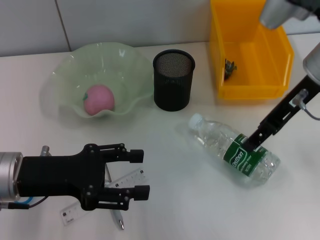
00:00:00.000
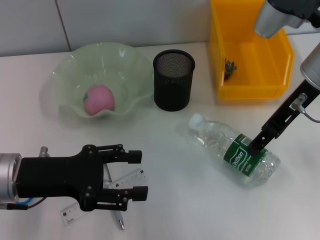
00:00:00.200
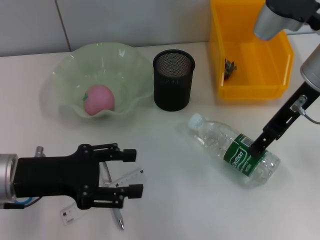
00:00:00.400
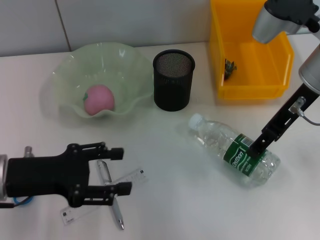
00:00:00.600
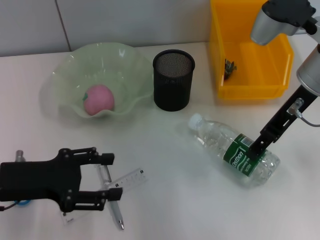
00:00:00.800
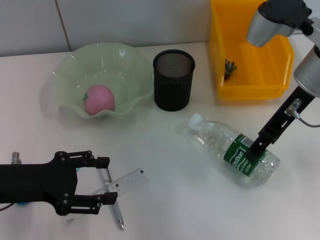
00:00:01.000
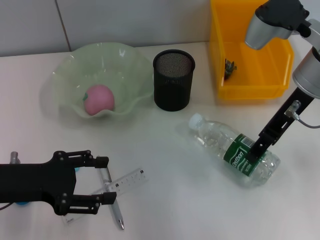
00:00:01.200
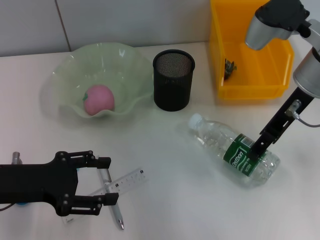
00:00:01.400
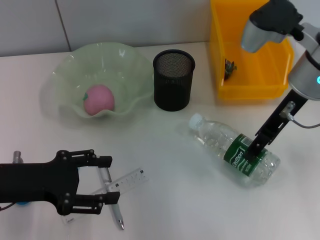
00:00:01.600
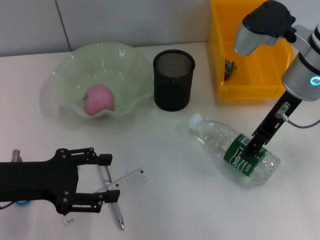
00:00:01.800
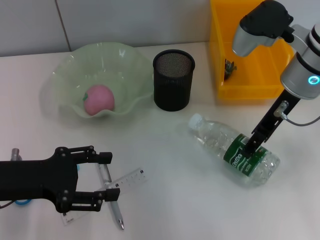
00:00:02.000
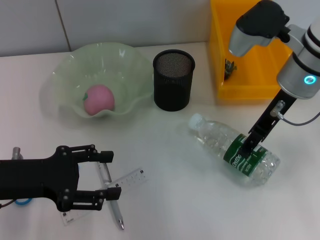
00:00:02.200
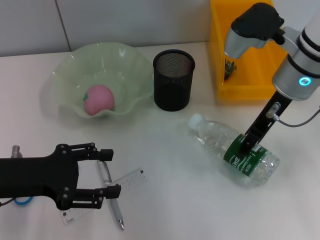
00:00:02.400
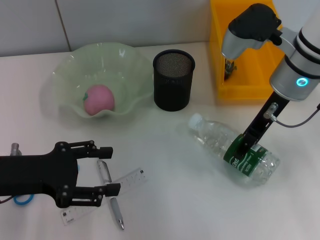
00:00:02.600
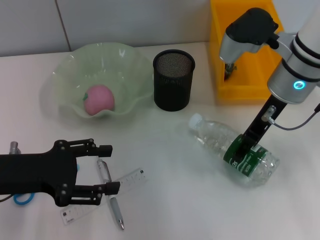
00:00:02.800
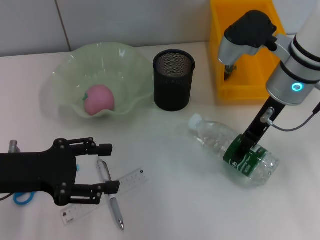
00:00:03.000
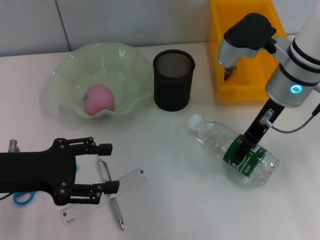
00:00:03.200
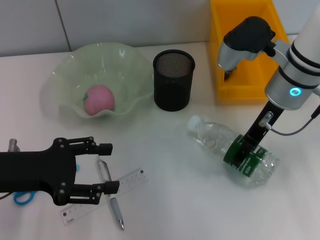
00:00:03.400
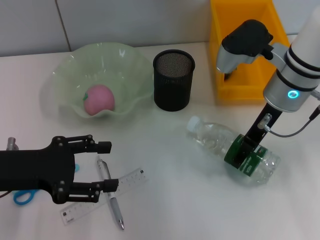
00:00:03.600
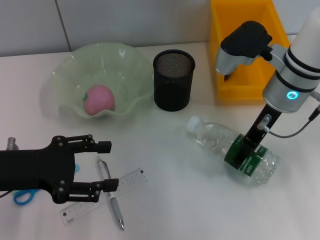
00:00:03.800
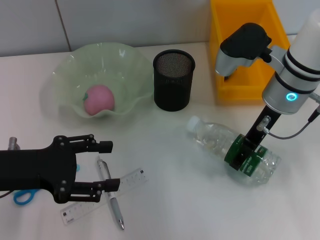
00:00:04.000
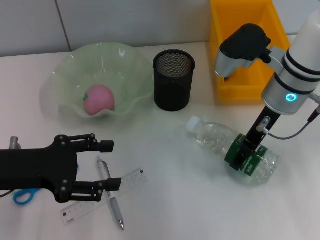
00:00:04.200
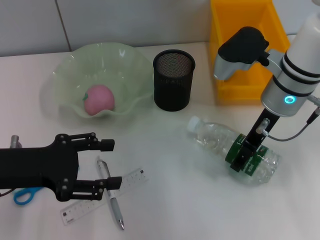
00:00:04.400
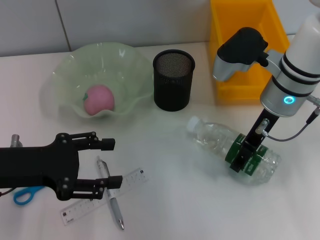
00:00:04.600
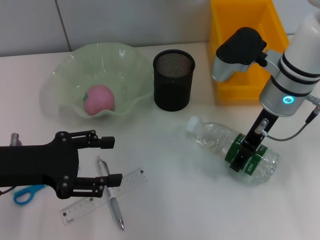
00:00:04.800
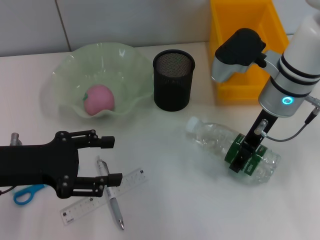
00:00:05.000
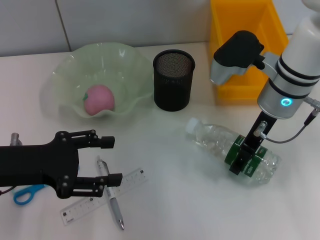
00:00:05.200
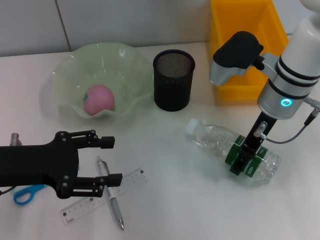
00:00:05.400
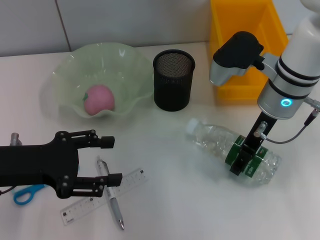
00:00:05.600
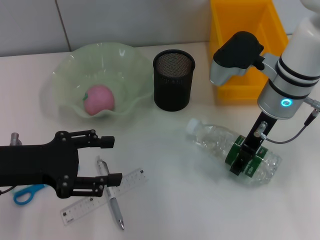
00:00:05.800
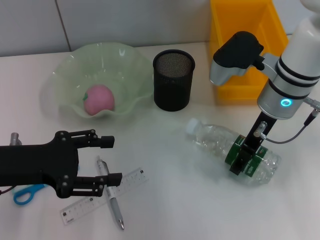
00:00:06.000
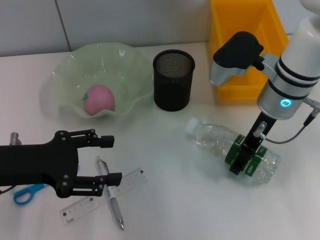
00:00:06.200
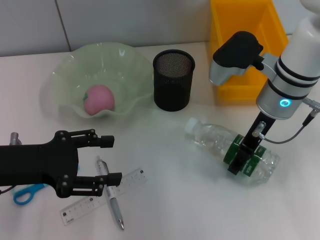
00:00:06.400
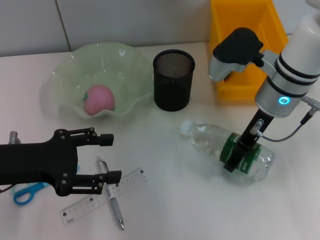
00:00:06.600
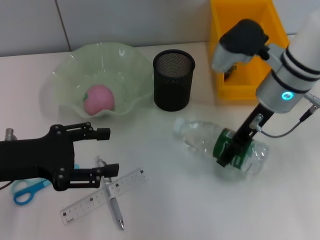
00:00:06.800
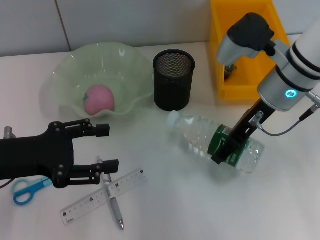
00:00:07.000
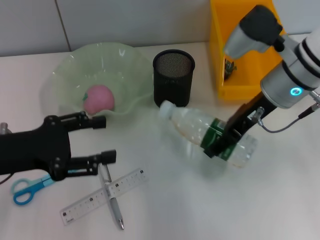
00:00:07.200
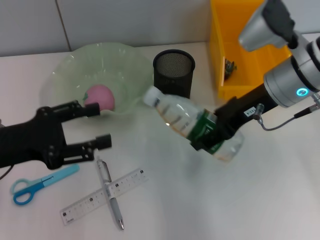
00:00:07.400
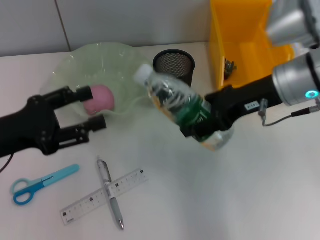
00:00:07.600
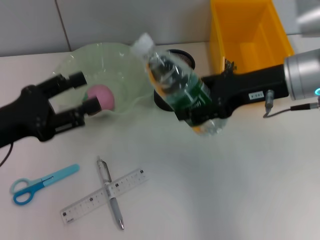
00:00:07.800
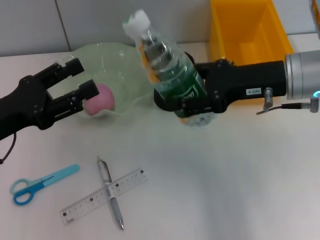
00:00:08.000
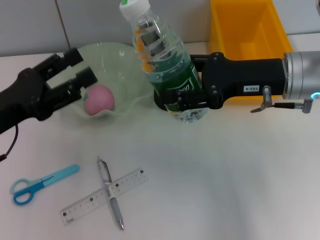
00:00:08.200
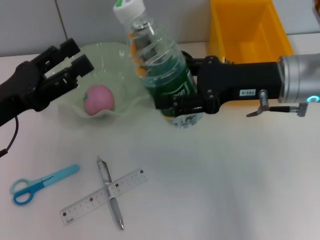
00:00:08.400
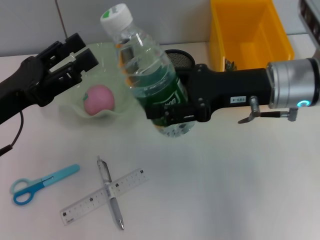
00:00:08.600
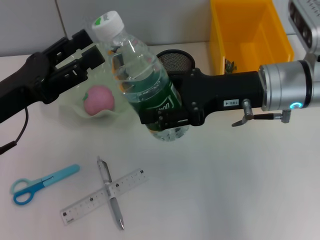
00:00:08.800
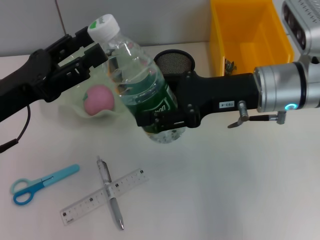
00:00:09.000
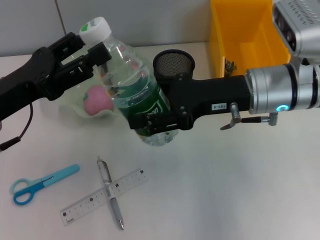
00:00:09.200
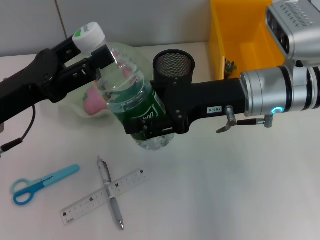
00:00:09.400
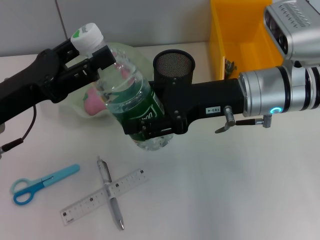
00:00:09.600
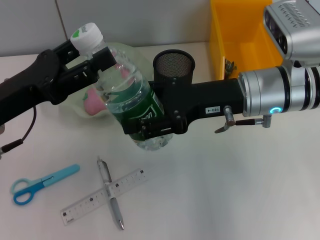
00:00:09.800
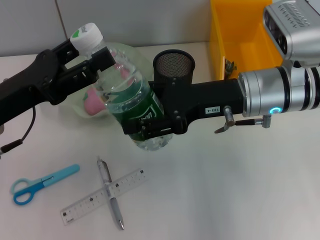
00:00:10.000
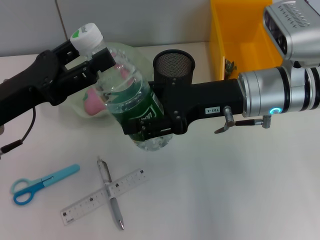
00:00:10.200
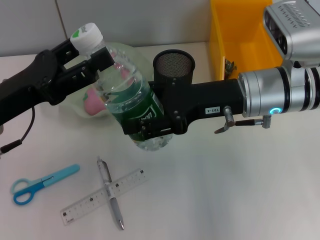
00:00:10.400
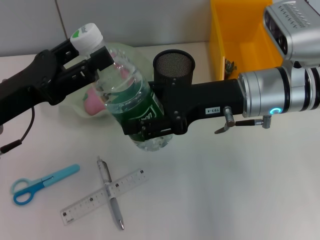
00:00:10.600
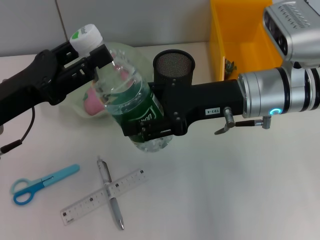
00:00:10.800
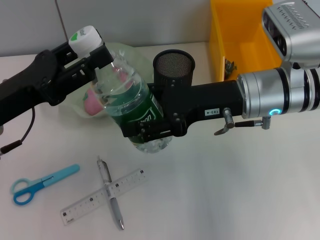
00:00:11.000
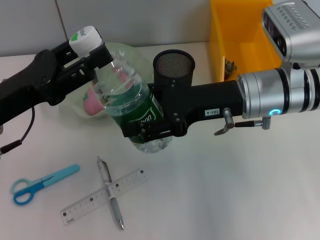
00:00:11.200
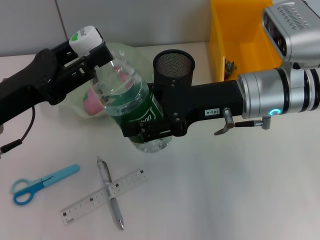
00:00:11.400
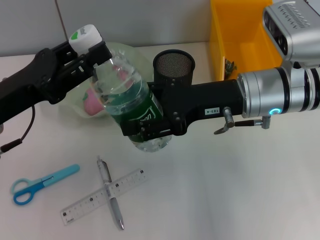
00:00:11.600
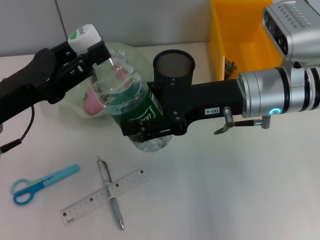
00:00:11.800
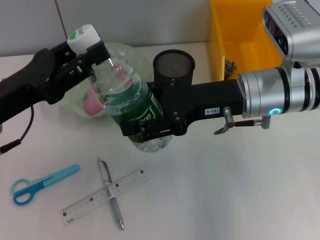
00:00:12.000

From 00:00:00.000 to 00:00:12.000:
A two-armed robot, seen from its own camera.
Step, from 00:00:00.000 to 00:00:06.400: Grab the water bottle with the right hand.
From 00:00:00.000 to 00:00:01.600: The grippers move only a little.
From 00:00:01.600 to 00:00:04.400: The grippers make only small movements.
From 00:00:04.400 to 00:00:06.000: Both grippers stay put.
From 00:00:06.000 to 00:00:07.600: The right gripper changes place by about 5 cm.
From 00:00:09.000 to 00:00:10.400: The grippers make only small movements.
From 00:00:10.400 to 00:00:12.000: Neither gripper changes place.

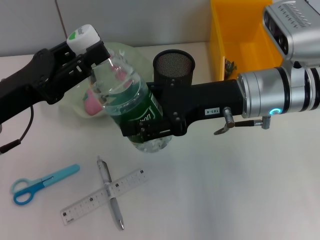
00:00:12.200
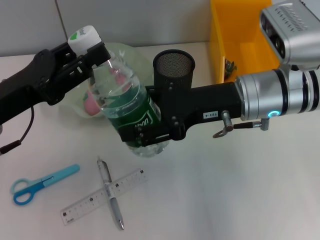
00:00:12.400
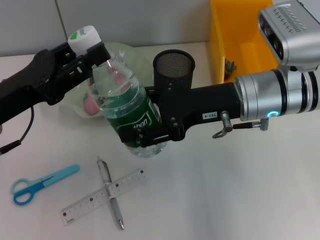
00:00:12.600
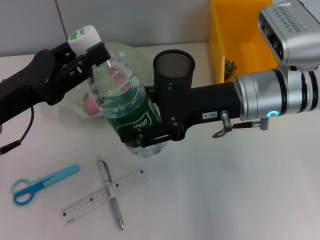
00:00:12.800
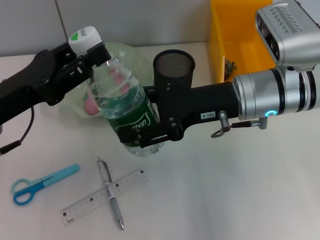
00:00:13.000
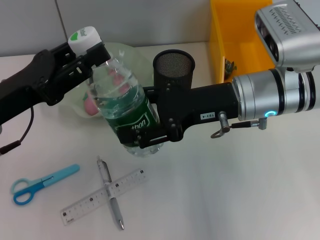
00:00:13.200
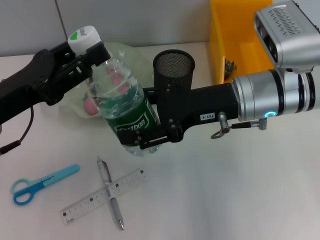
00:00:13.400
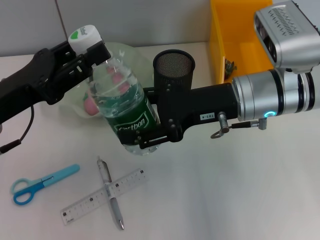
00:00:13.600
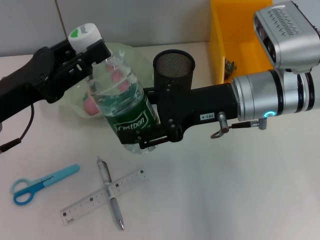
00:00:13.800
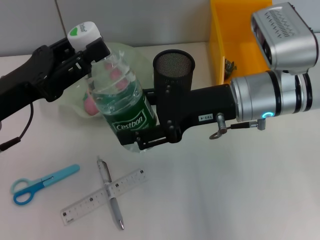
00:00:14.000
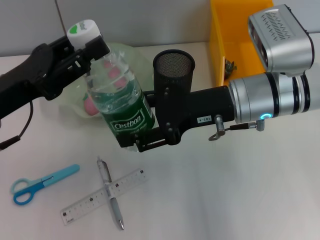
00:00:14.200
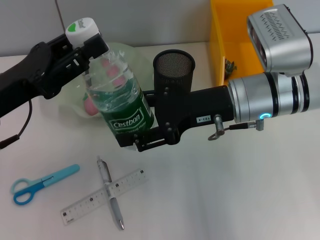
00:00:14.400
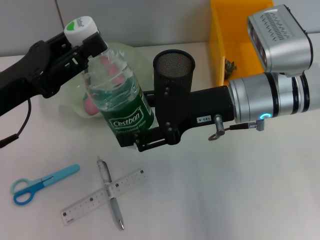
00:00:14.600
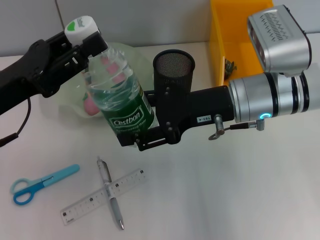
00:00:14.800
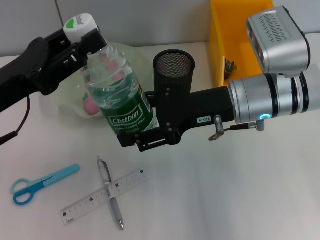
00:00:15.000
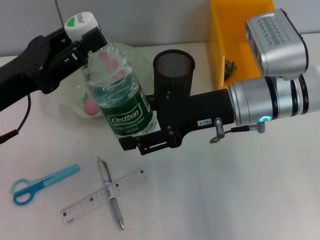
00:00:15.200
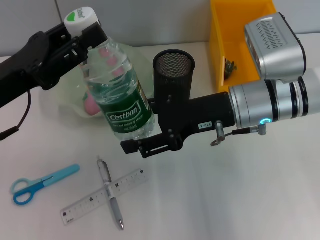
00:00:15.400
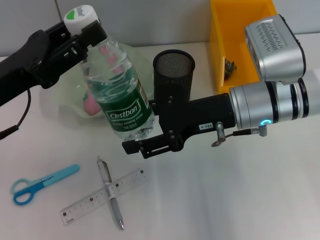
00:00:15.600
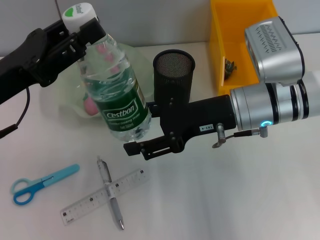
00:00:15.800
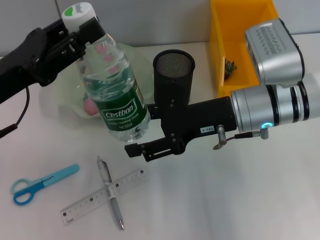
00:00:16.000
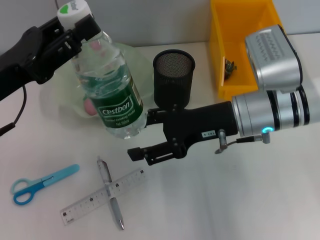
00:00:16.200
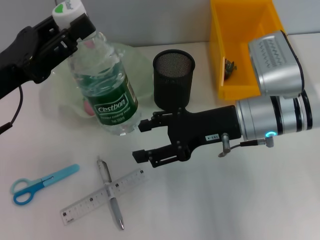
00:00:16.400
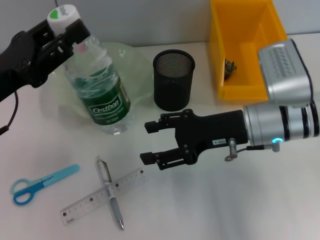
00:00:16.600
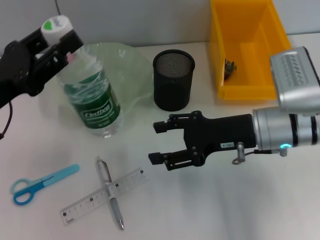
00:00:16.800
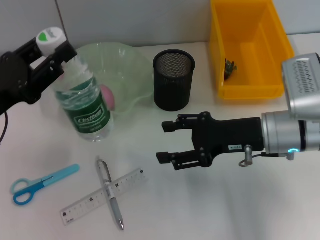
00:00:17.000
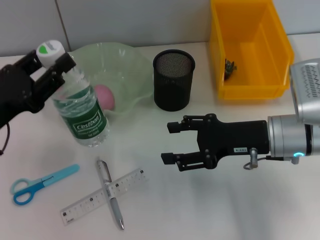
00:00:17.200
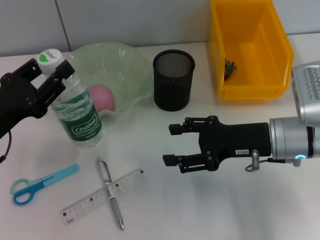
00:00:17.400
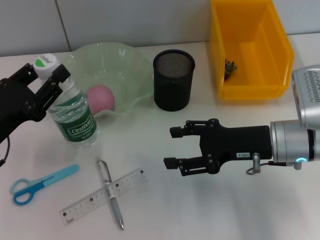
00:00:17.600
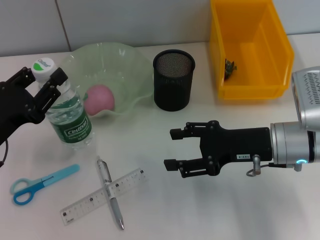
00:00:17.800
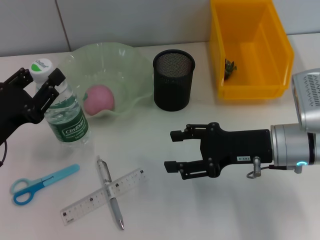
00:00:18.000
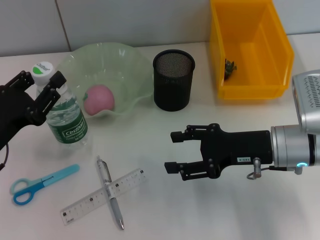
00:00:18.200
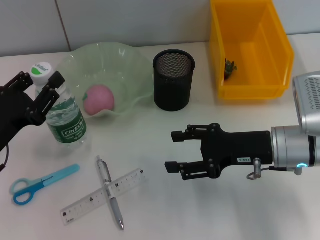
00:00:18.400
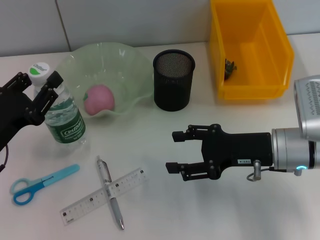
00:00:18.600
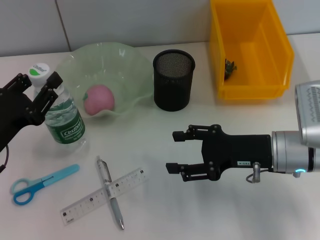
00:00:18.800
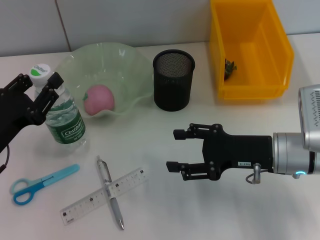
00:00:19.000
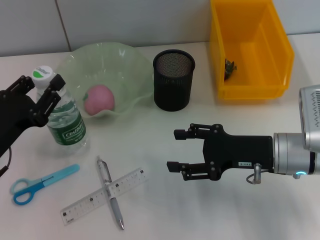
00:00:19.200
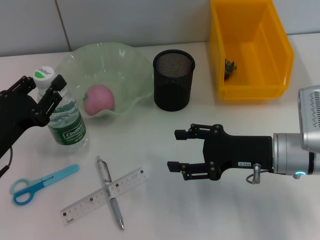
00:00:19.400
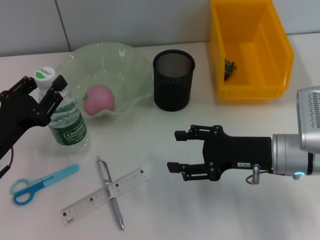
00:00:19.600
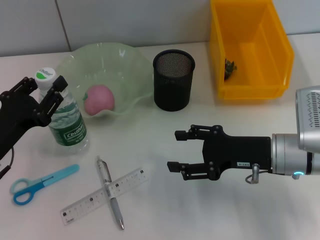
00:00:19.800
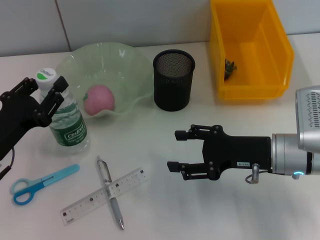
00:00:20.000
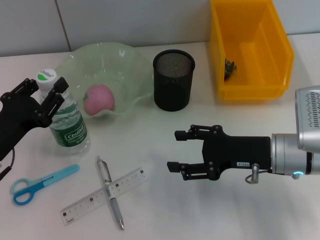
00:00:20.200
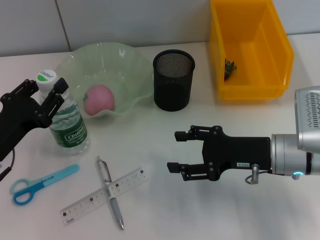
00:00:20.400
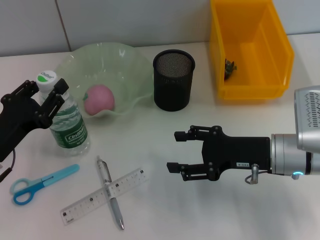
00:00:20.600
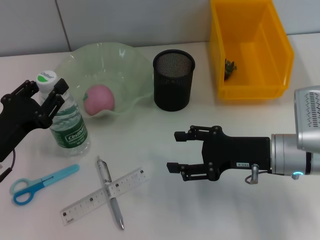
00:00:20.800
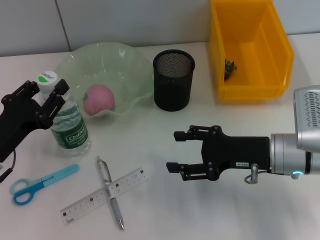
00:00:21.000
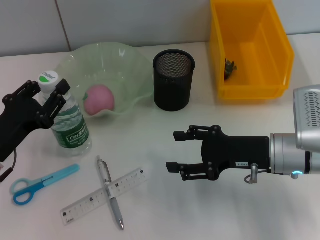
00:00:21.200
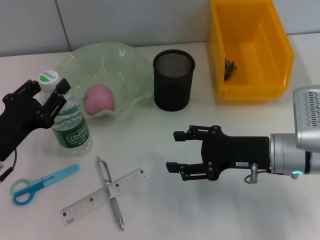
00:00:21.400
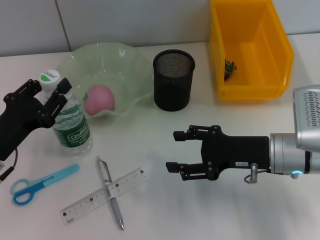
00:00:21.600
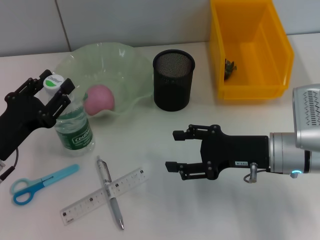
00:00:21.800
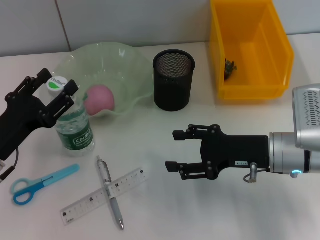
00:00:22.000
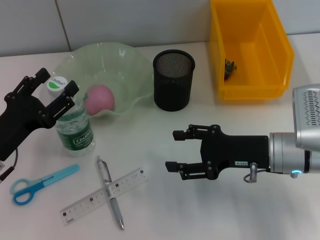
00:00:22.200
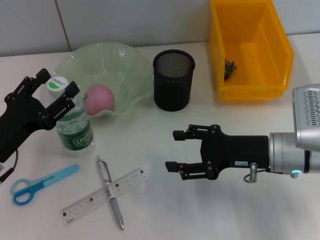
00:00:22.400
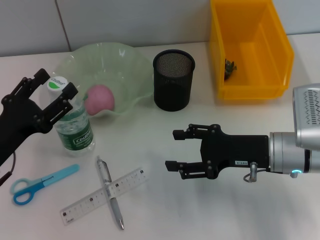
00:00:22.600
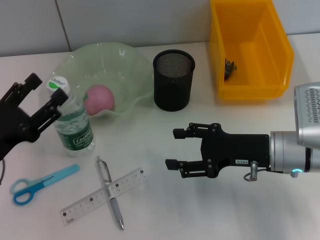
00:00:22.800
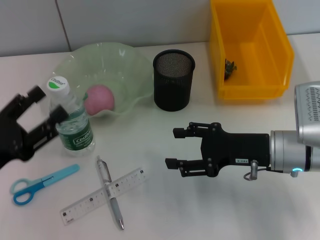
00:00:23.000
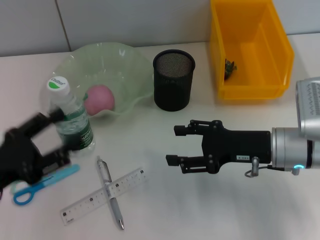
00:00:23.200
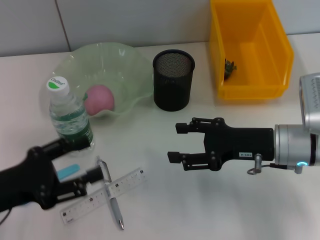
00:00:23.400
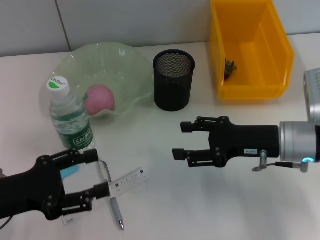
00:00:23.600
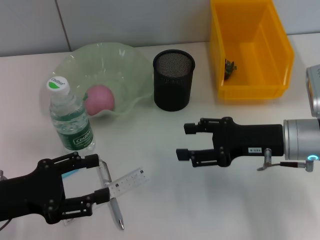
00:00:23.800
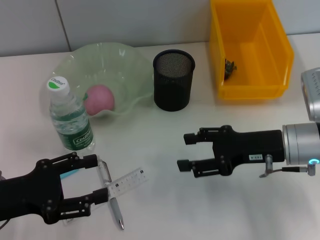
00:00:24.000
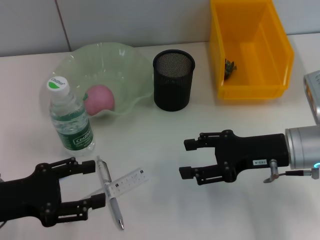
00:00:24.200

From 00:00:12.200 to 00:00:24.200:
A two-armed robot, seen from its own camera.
Step, from 00:00:12.200 to 00:00:16.400: Pass the water bottle from the right hand to the left hand.
Step, from 00:00:16.600 to 00:00:22.400: Place the water bottle on the table with the left hand.
From 00:00:12.200 to 00:00:13.800: Both grippers stay about where they are.
From 00:00:13.800 to 00:00:15.200: Both grippers stay put.
From 00:00:16.600 to 00:00:18.200: The right gripper changes place by about 5 cm. The left gripper heads downward, covering about 10 cm.
From 00:00:18.200 to 00:00:19.800: The grippers stay close to where they were, moving slightly.
From 00:00:19.800 to 00:00:21.200: Both grippers stay about where they are.
From 00:00:21.200 to 00:00:22.600: The left gripper opens up.
